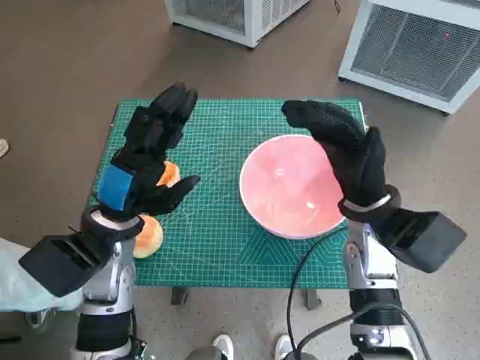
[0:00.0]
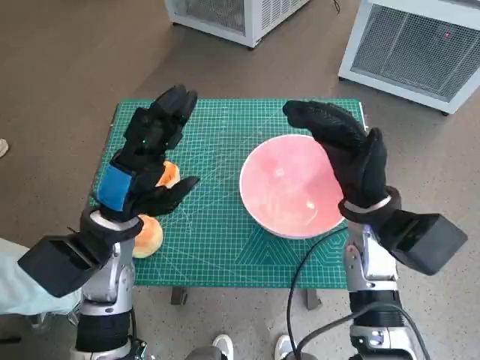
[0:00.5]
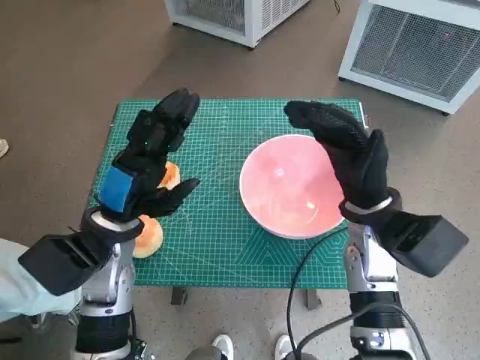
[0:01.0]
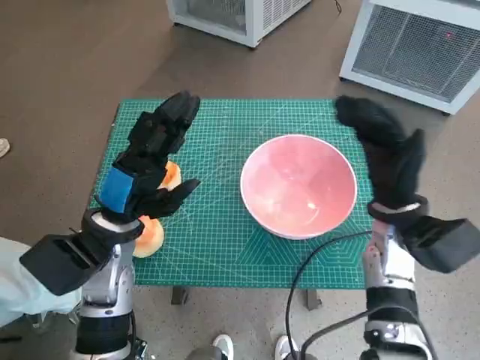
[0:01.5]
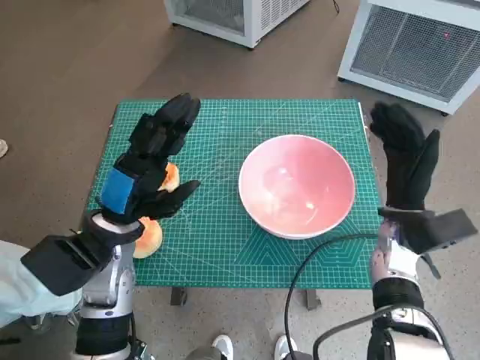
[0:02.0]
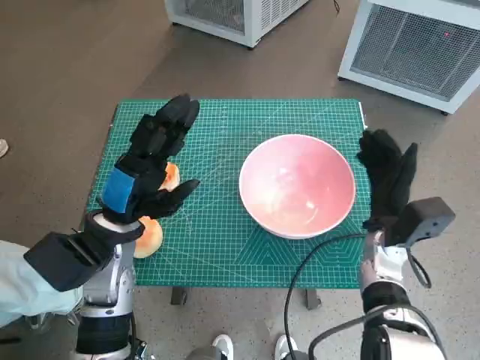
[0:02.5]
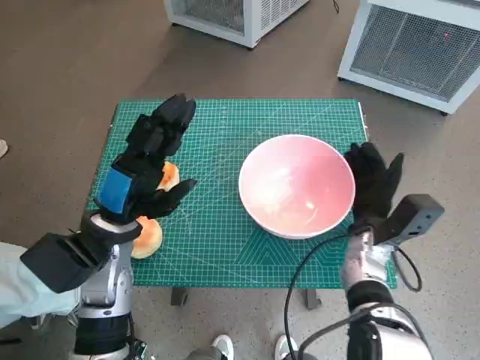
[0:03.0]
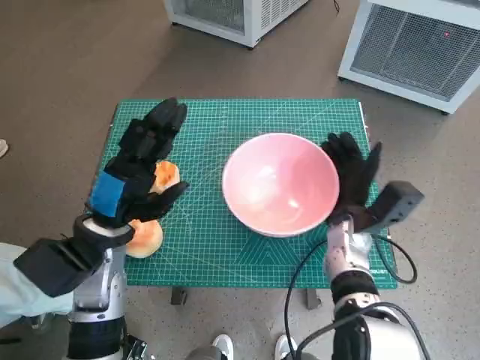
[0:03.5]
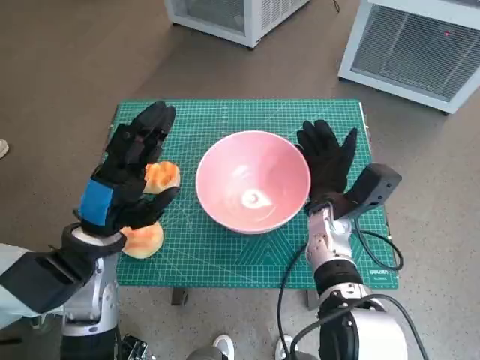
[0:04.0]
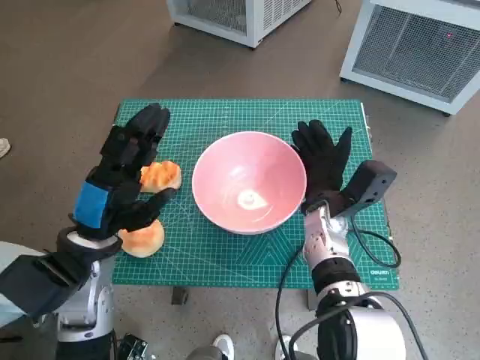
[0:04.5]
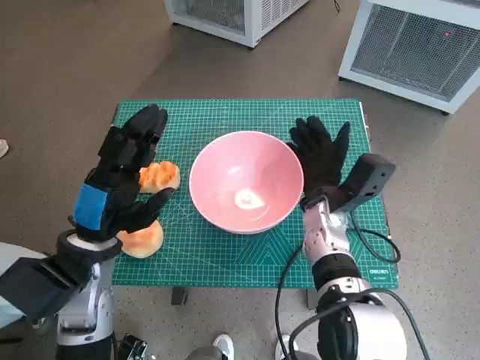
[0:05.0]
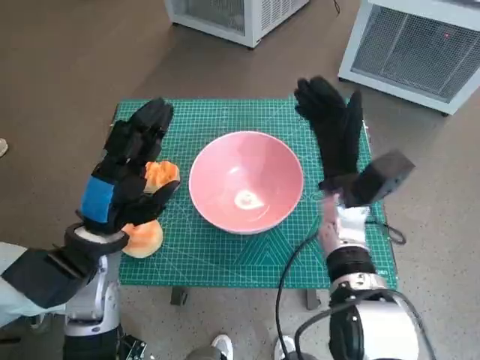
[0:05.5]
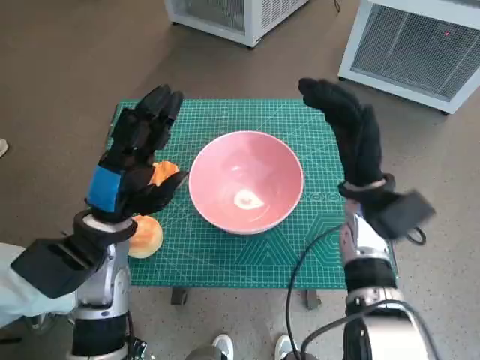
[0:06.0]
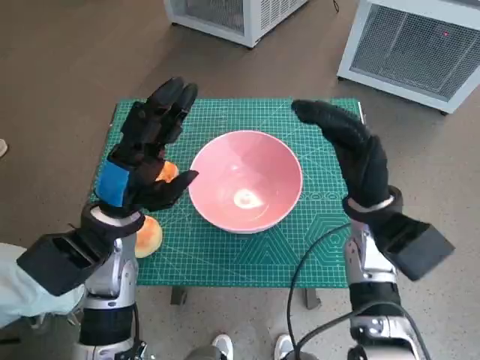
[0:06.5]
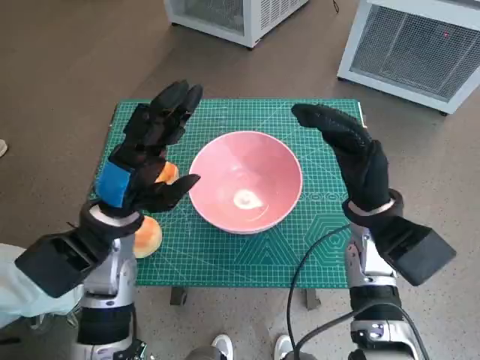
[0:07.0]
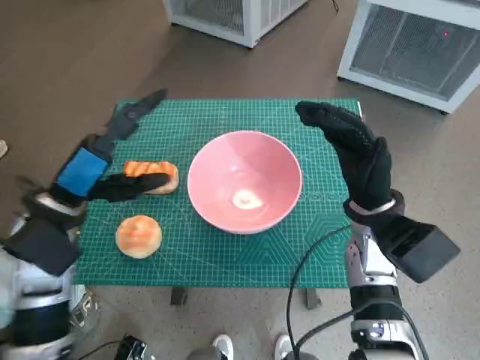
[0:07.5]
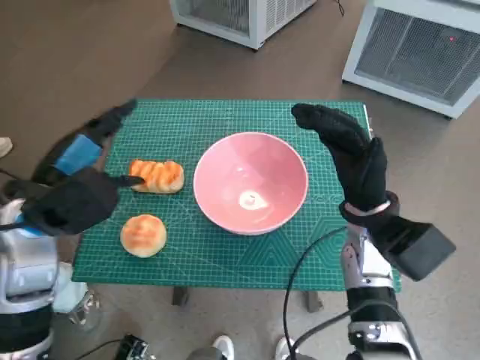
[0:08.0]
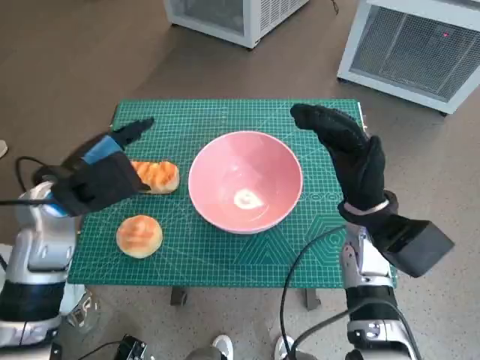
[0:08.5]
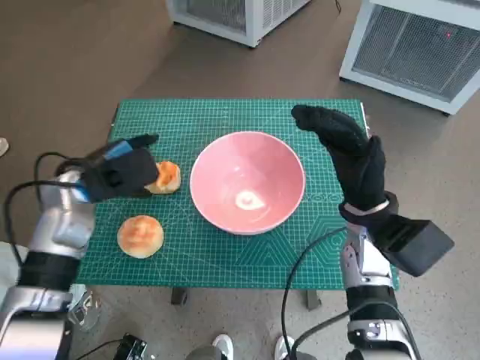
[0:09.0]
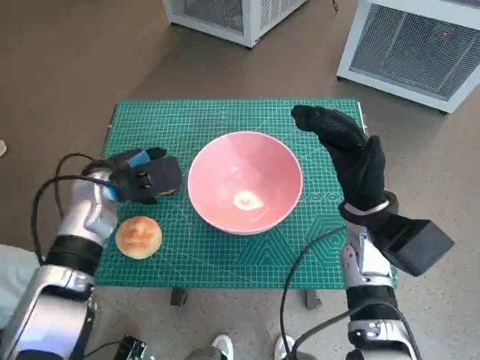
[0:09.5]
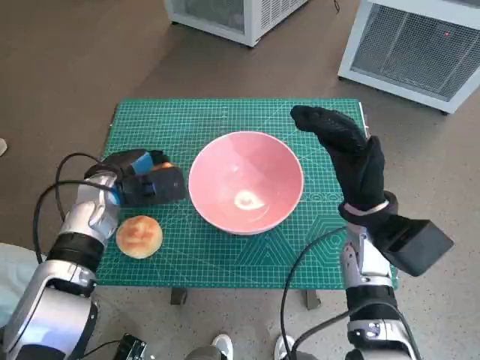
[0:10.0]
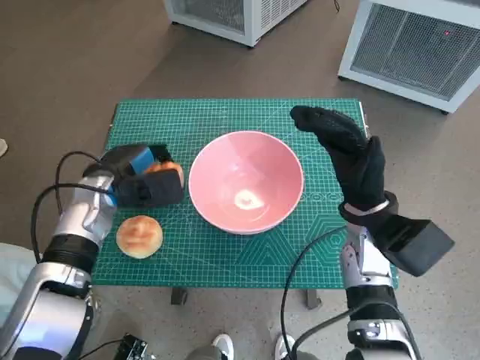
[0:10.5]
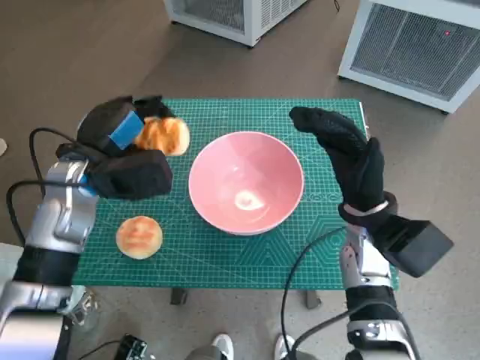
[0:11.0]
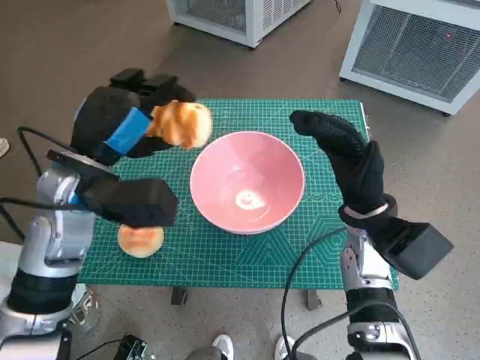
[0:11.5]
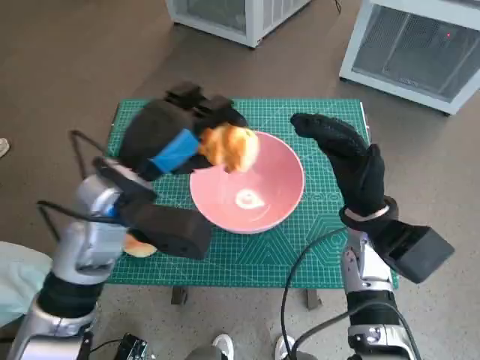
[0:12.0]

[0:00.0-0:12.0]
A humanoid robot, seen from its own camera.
Task of the whole recording: Push the bowl into the center of the table and put the bread into the bowl.
Step, 0:00.0 to 0:05.0: Move the pink bowl to the center of table with right hand.
Step, 0:05.5 to 0:09.5: Grasp the long bread with left hand.
0:02.0 to 0:04.0: The right hand shifts roughly 10 cm to the left.
0:04.0 to 0:06.0: The right hand is displaced upward by about 5 cm.
0:06.0 to 0:08.0: The left hand travels upward and to the left by some 10 cm.
0:08.0 to 0:10.0: The left hand is displaced downward and forward by some 10 cm.
0:10.0 to 0:12.0: The left hand moves upward, to the right and backward, roughly 15 cm.

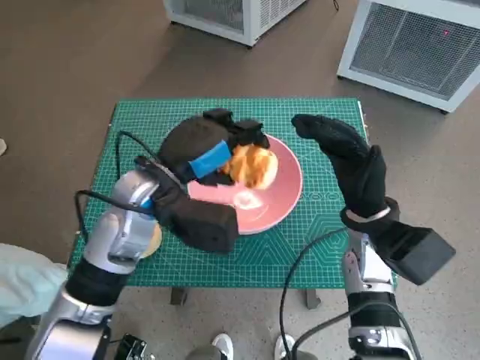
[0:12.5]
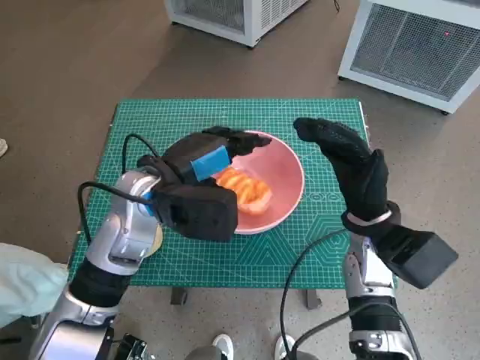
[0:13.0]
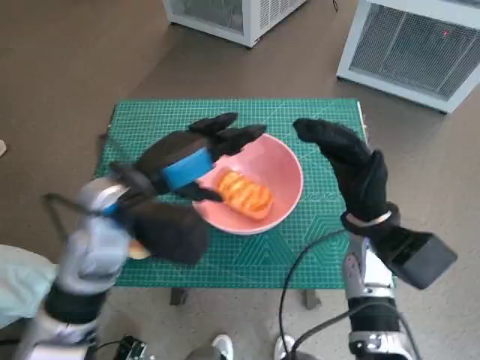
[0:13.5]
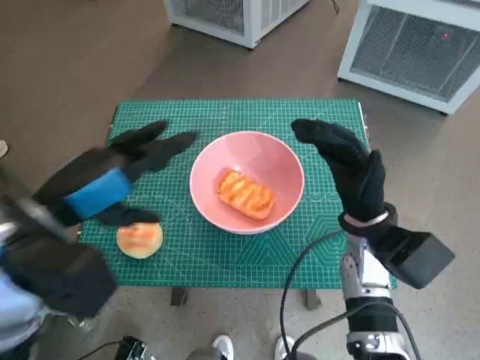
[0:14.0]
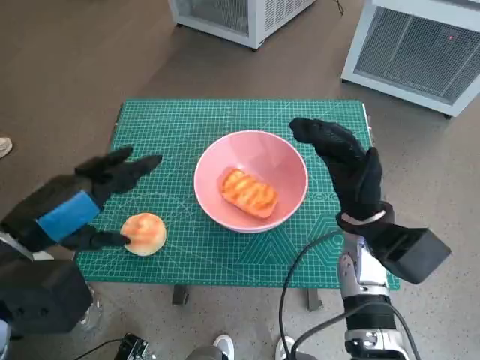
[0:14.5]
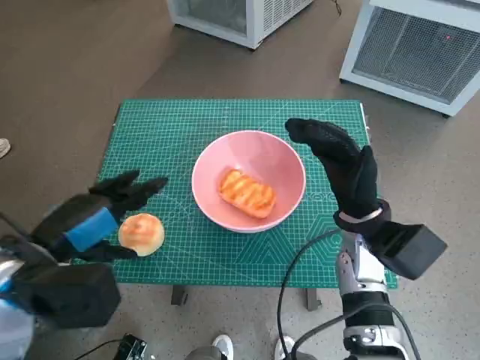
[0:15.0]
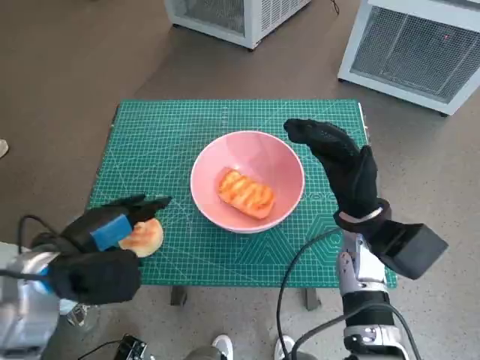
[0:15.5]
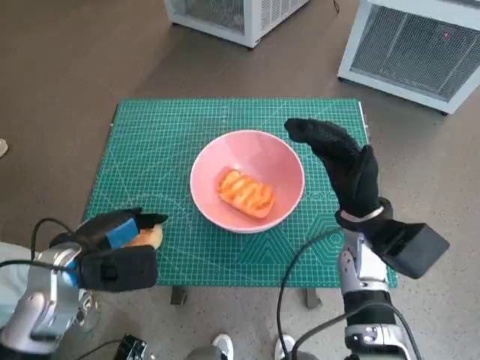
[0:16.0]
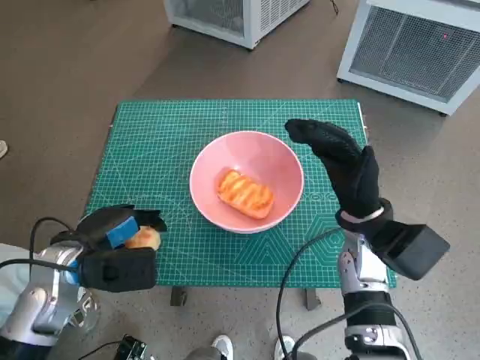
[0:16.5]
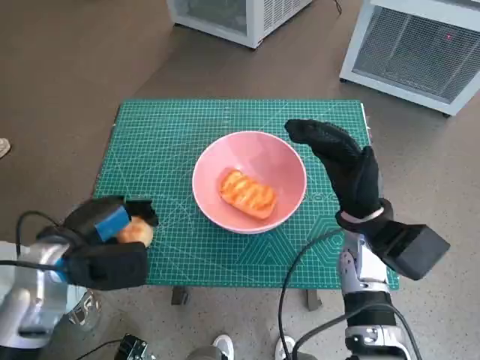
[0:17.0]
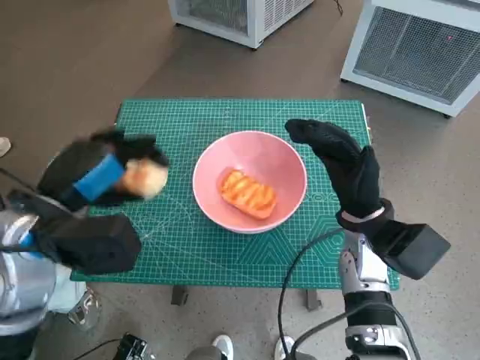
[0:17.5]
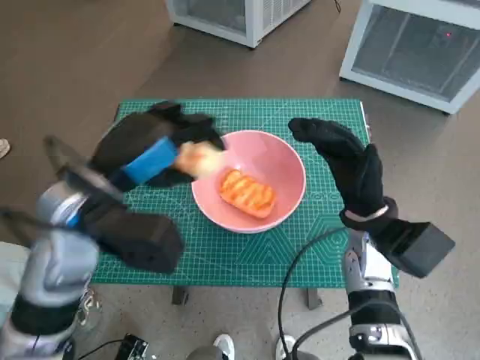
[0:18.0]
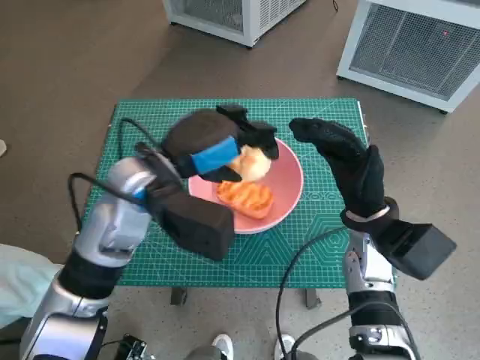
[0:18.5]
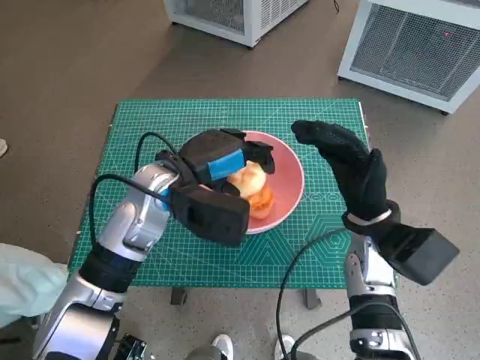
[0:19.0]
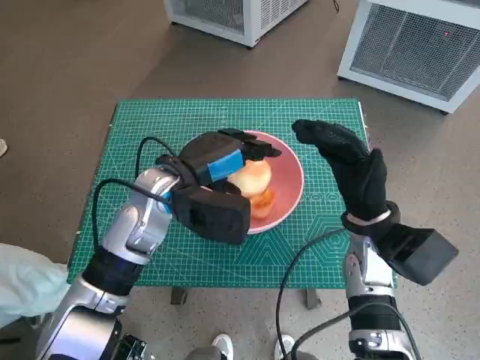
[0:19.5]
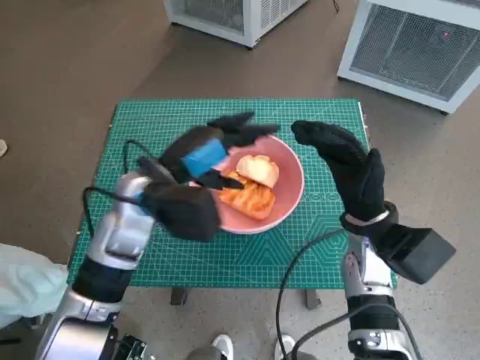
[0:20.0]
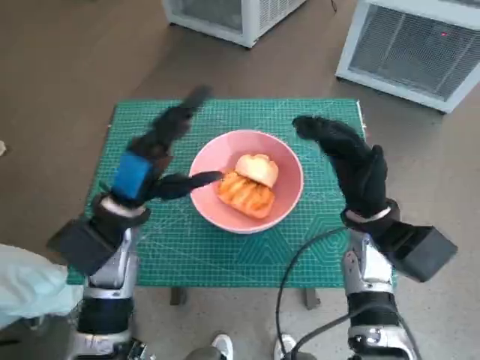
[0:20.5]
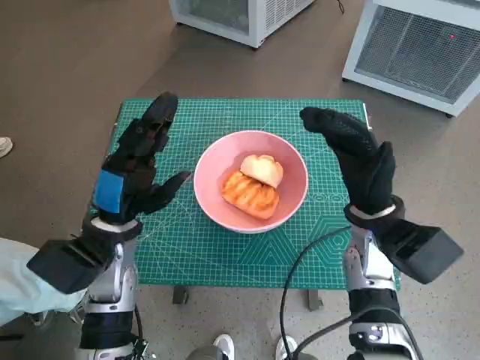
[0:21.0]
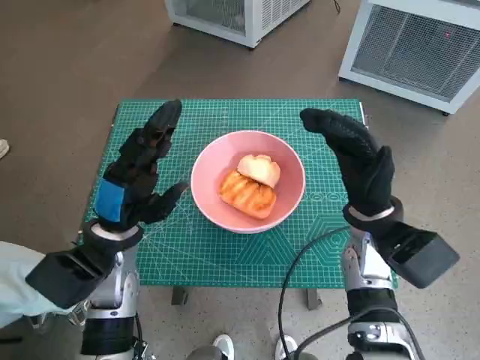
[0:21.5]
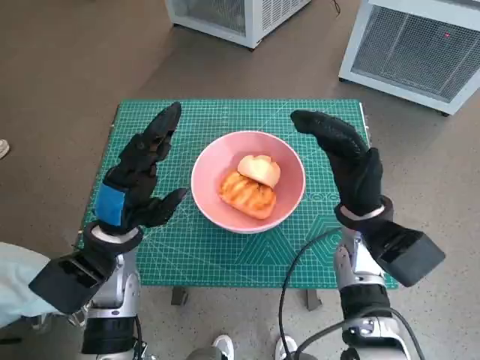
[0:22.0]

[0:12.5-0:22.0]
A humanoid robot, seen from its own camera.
Task of the whole recording: Push the bowl into the center of the table and put the bread into the bowl.
Step, 0:14.0 to 0:16.0: Grasp the round bread with left hand.
Step, 0:16.5 to 0:19.5: Place the round bread in pink bowl with left hand.
0:12.5 to 0:14.5: The left hand heads to the left and backward, covering roughly 15 cm.
0:14.5 to 0:16.5: The left hand goes some 10 cm downward.
0:16.5 to 0:18.0: The left hand moves upward and to the right, approximately 15 cm.
0:18.0 to 0:20.0: The left hand heads downward, covering approximately 5 cm.
0:20.0 to 0:22.0: The left hand is displaced downward, backward and to the left by some 10 cm.

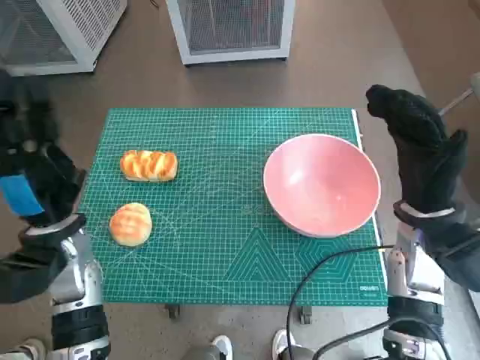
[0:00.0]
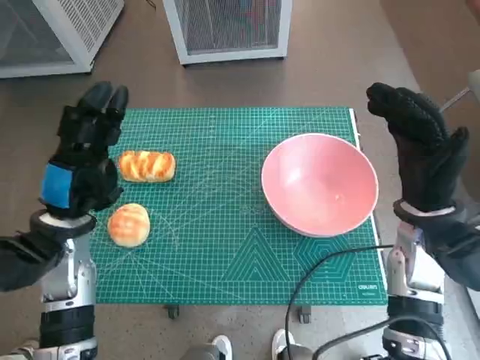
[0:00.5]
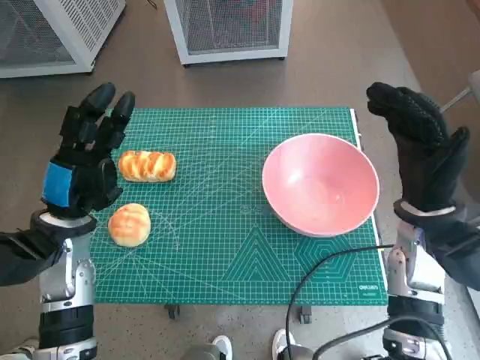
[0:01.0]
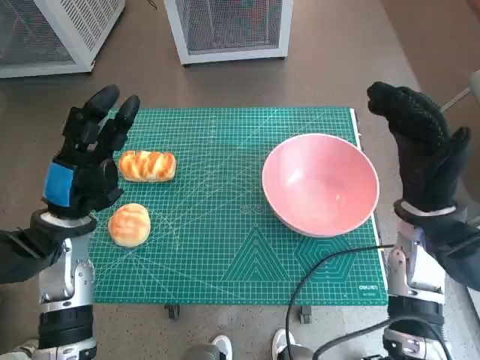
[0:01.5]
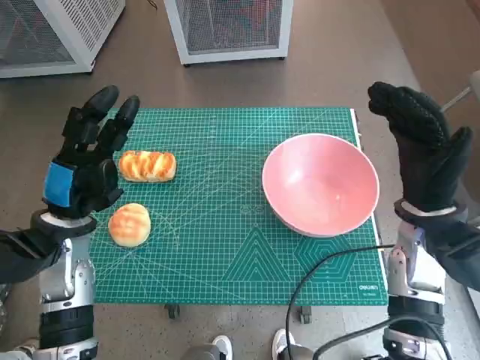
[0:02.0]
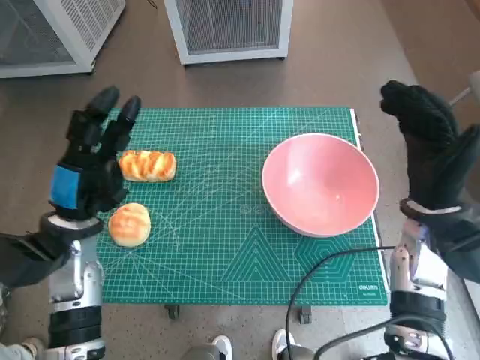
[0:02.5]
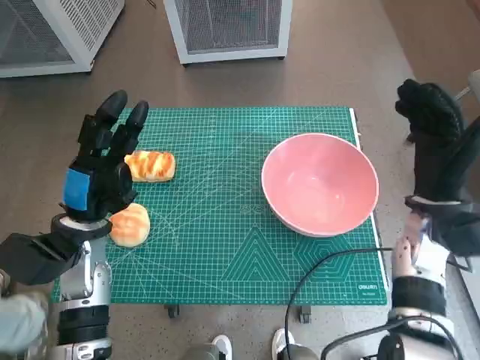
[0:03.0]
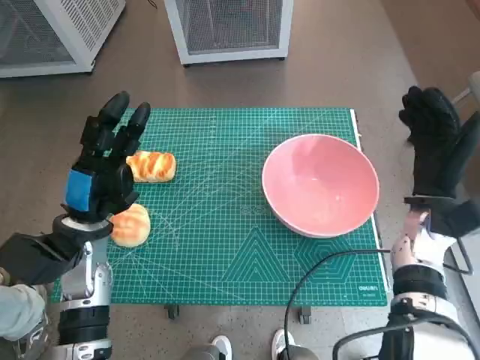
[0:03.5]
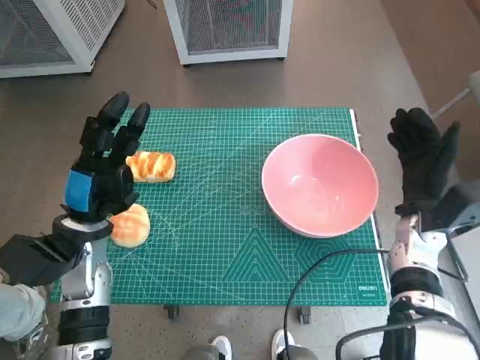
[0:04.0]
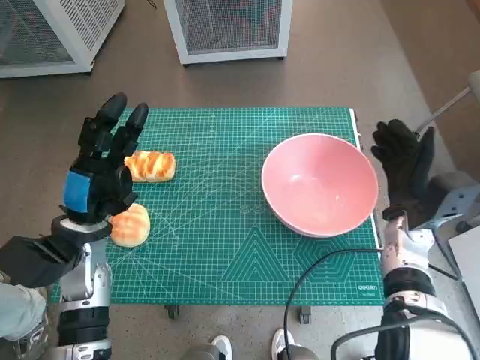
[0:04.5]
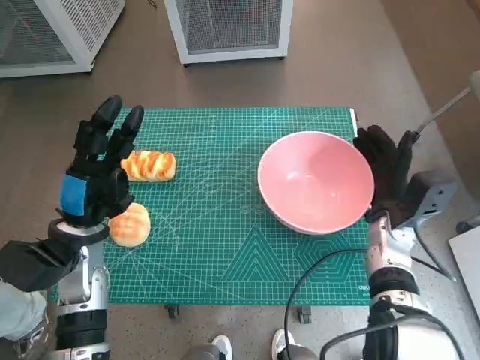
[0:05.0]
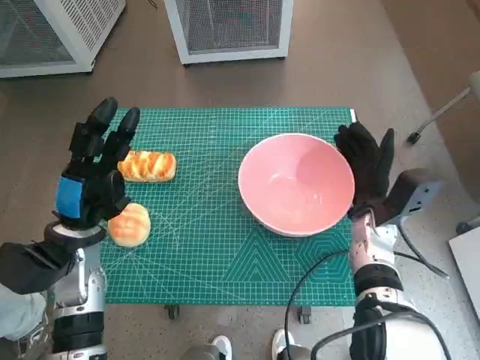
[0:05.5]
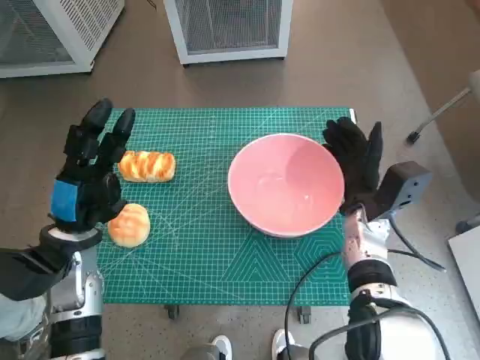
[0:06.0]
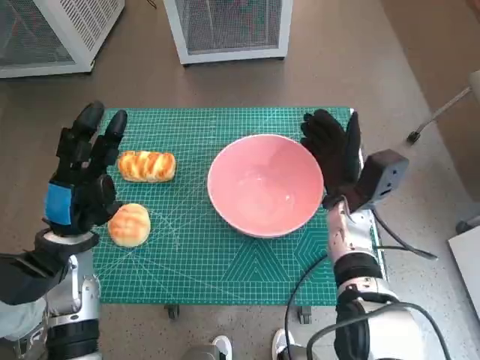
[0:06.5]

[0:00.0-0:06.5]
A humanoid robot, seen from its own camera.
Task of the whole recording: Push the bowl into the center of the table and put the bread into the bowl.
0:02.0 to 0:04.5: The right hand moves downward, roughly 10 cm.
0:04.5 to 0:06.5: The right hand travels to the left by some 10 cm.
